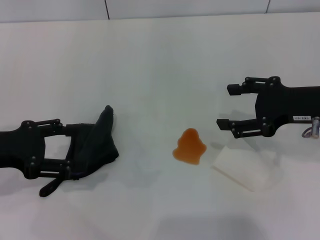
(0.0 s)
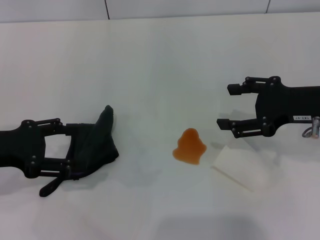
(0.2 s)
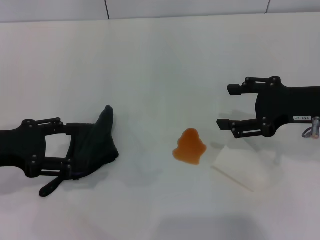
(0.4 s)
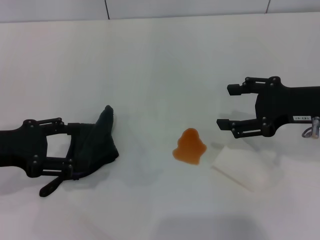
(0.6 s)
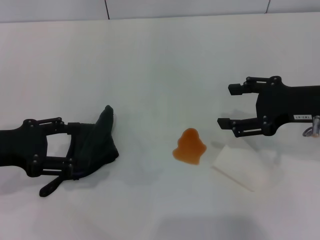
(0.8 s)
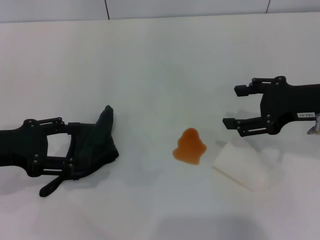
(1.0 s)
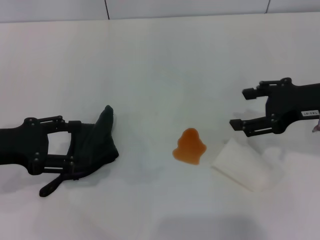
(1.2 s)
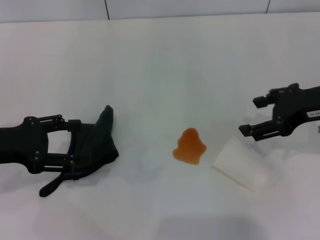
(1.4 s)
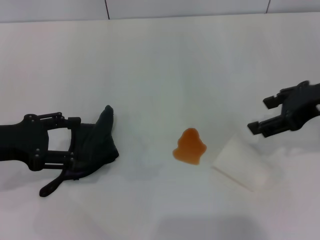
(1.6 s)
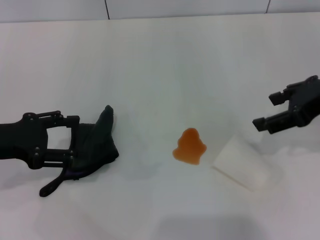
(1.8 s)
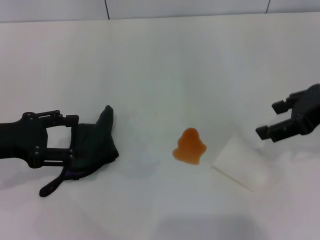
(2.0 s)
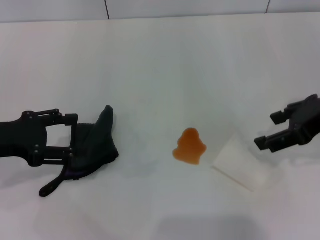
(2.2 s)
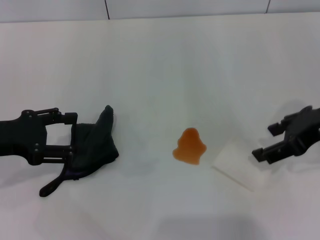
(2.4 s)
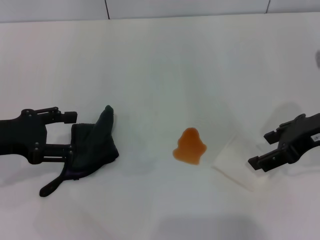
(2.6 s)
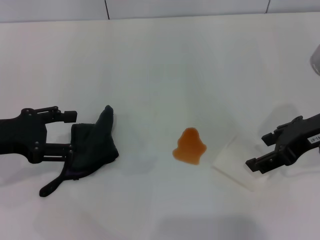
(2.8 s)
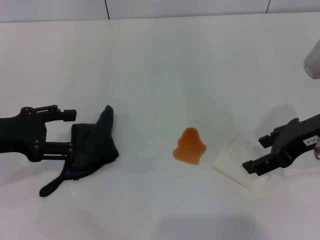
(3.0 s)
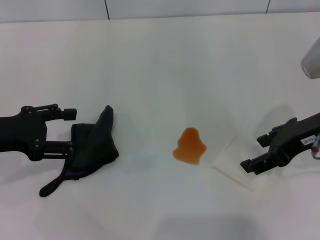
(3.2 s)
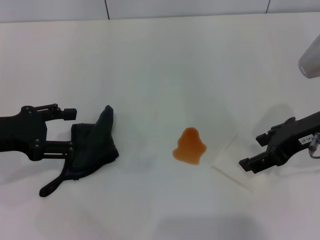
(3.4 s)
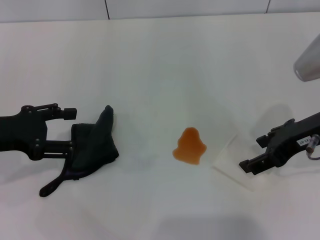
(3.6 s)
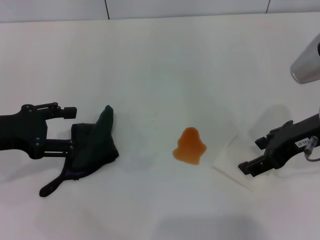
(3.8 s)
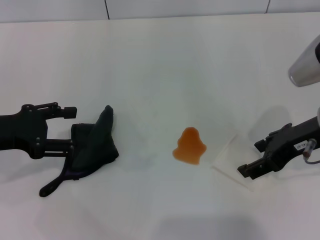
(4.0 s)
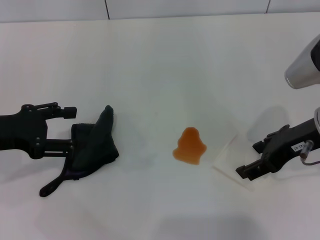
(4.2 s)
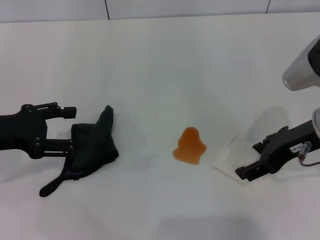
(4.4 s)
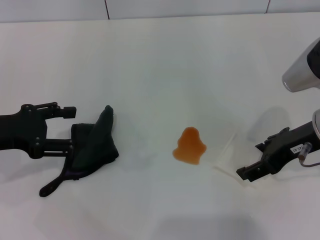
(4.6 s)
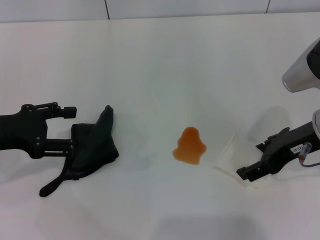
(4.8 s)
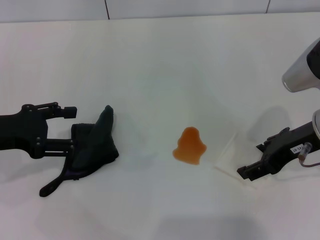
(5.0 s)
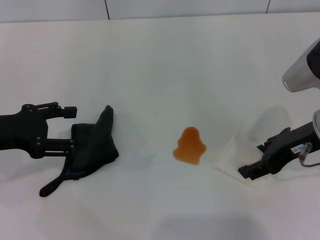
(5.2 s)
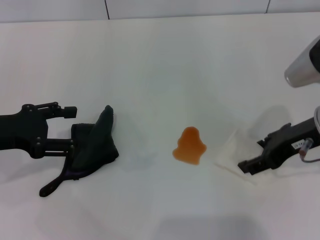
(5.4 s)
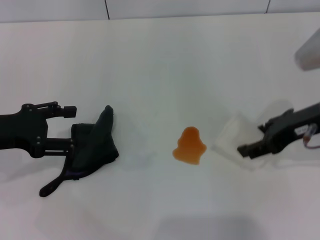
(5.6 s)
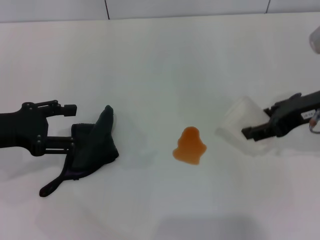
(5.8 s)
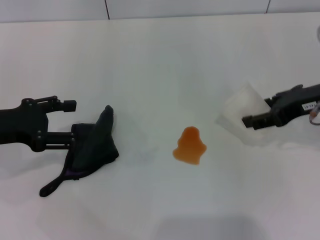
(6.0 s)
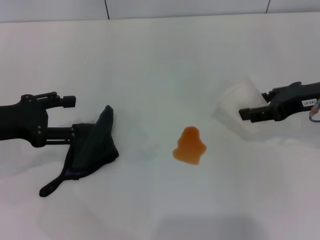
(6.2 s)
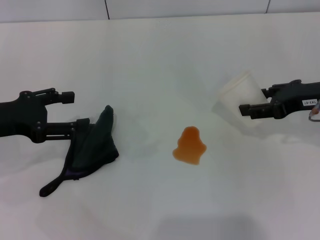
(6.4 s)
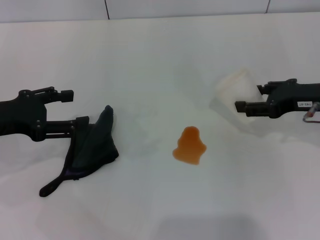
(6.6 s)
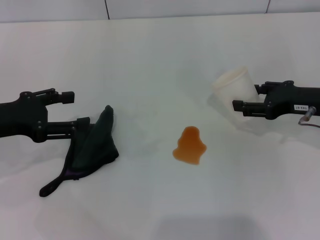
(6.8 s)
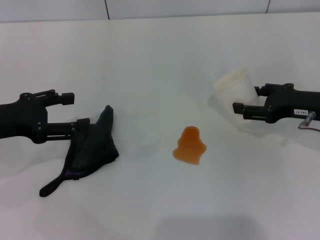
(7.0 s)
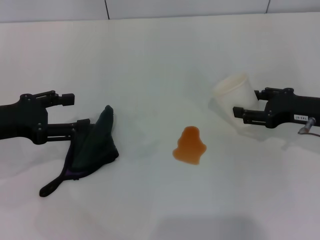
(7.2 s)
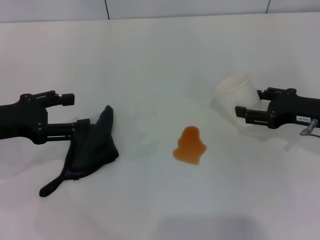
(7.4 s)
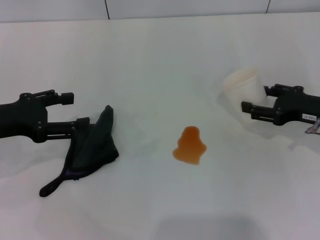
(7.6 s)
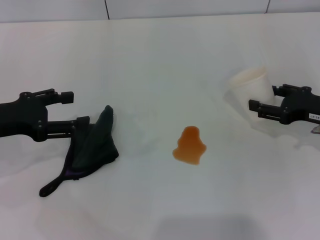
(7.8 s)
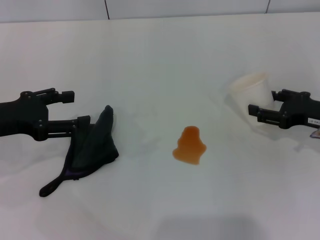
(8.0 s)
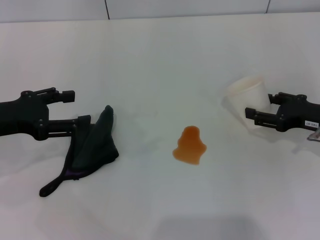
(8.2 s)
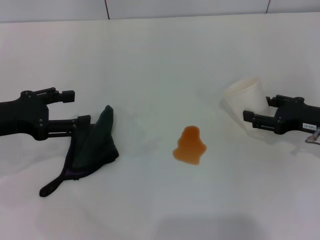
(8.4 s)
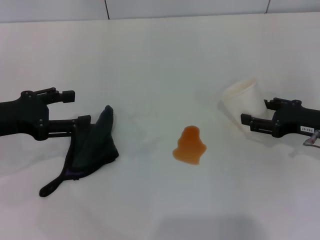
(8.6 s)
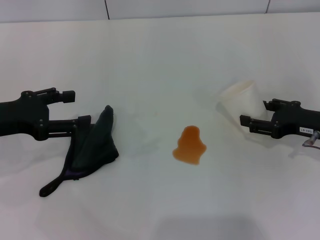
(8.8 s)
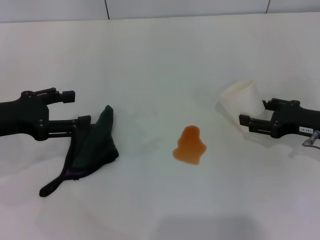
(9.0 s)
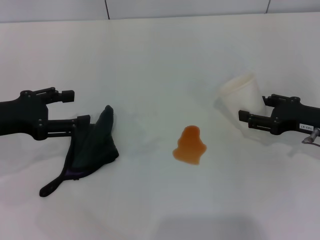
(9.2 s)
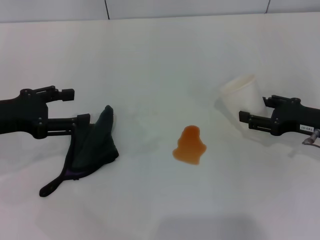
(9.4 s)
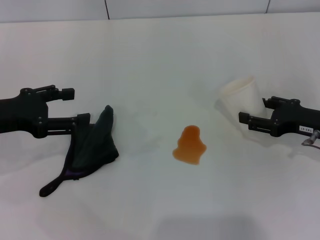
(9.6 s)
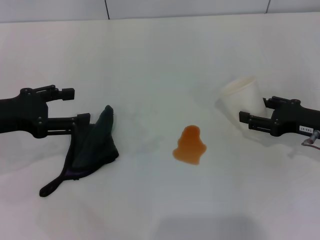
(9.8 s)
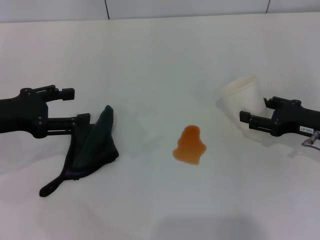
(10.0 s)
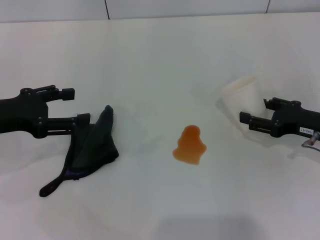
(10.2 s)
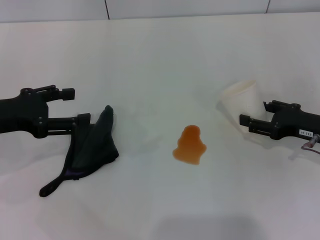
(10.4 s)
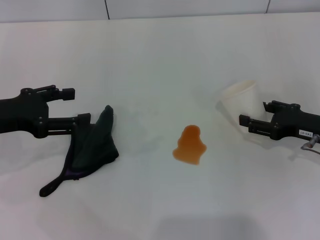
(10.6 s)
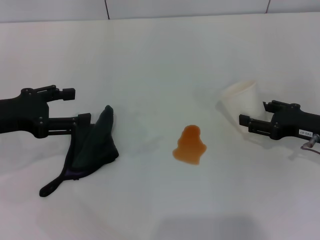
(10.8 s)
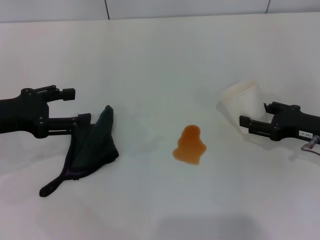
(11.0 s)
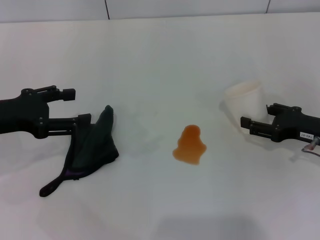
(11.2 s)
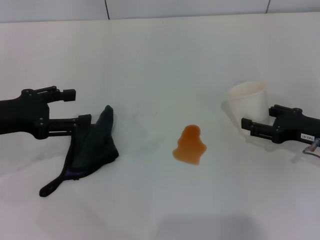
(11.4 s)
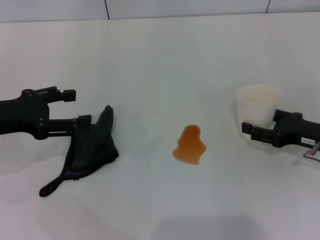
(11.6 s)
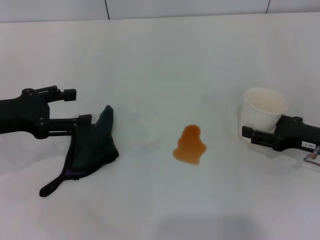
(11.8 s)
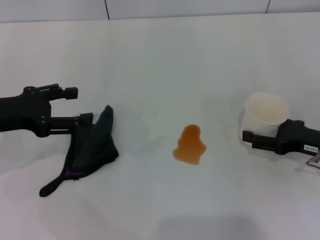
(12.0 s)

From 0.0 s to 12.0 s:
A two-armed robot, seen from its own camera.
Step, from 0.0 s to 5.0 s: Grasp the paper cup with the right gripper.
From 1.6 s to 4.4 s: There are only small adjustments of the grippers.
From 4.4 s to 6.0 s: The right gripper closes up.
From 6.0 s to 7.6 s: The right gripper moves downward, about 10 cm.
From 7.6 s to 9.0 s: The grippers make only small movements.
From 9.0 s to 10.4 s: Both grippers stay about where they are.
From 10.4 s to 12.0 s: The grippers stay close to where they were, moving slightly.

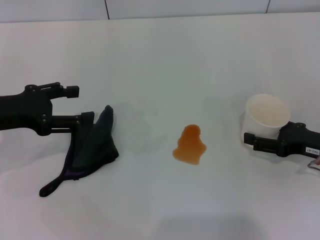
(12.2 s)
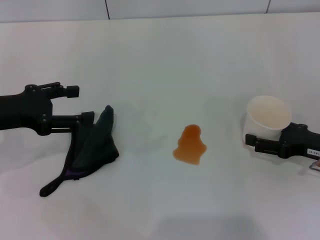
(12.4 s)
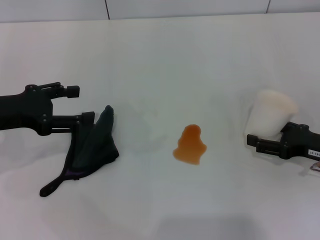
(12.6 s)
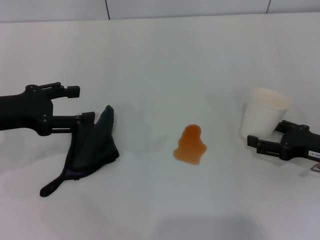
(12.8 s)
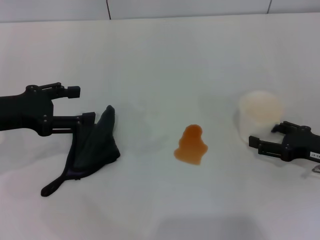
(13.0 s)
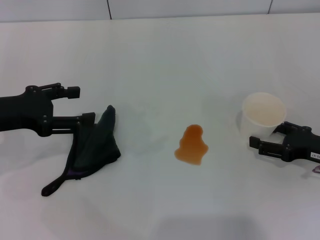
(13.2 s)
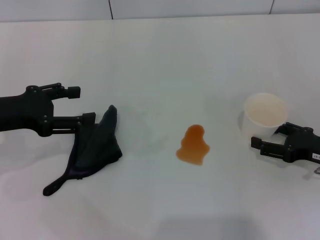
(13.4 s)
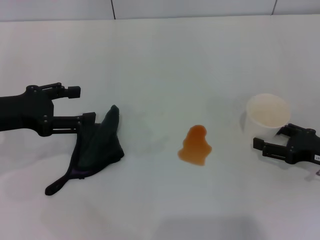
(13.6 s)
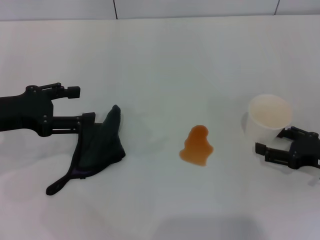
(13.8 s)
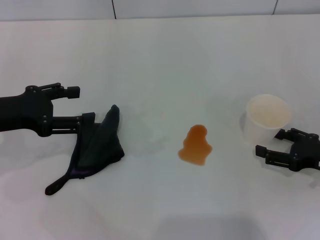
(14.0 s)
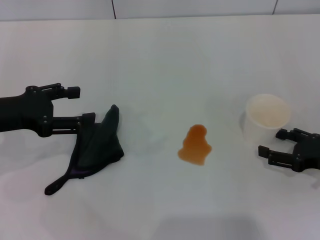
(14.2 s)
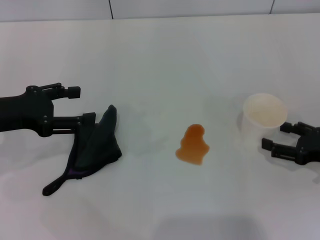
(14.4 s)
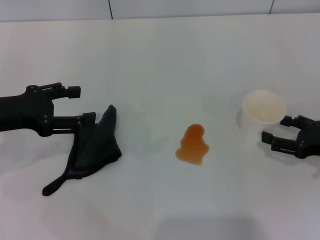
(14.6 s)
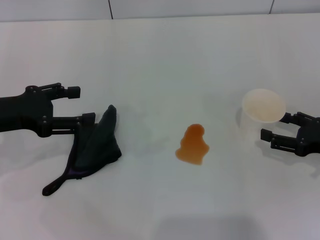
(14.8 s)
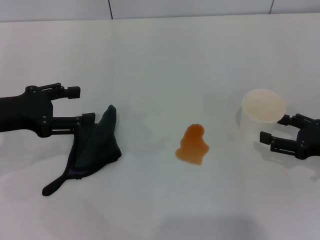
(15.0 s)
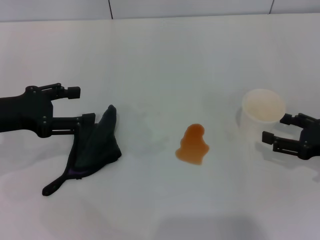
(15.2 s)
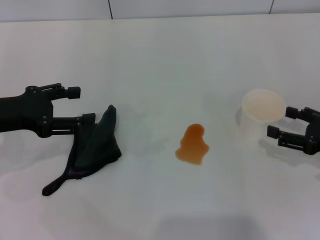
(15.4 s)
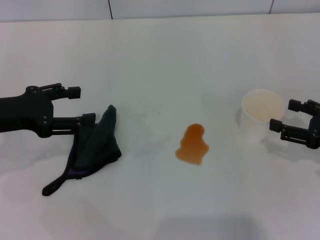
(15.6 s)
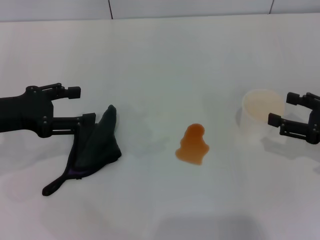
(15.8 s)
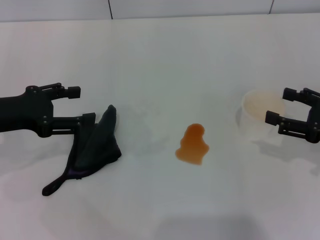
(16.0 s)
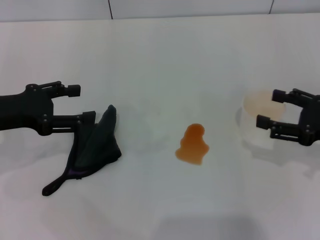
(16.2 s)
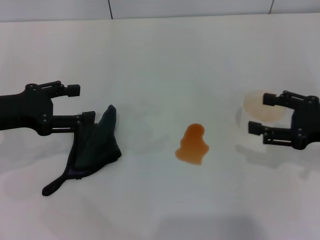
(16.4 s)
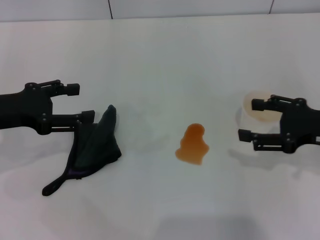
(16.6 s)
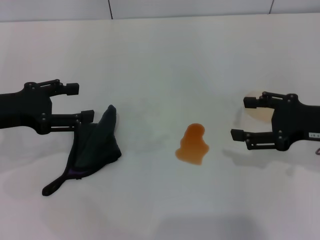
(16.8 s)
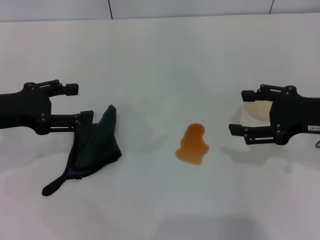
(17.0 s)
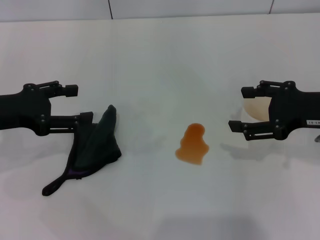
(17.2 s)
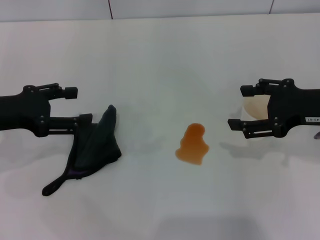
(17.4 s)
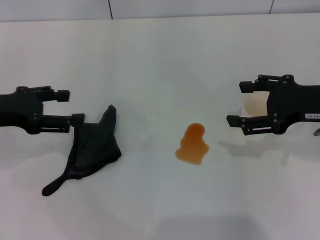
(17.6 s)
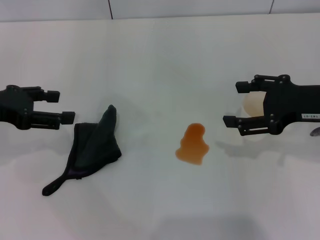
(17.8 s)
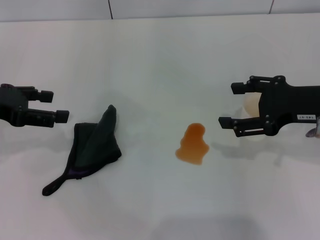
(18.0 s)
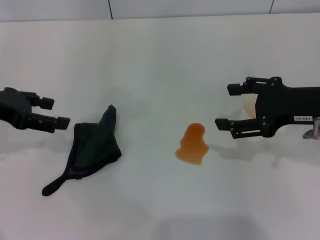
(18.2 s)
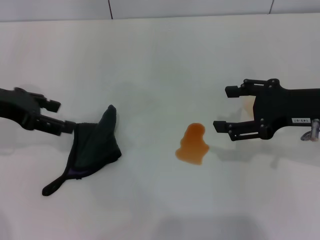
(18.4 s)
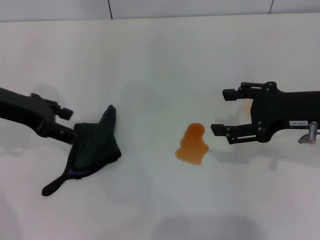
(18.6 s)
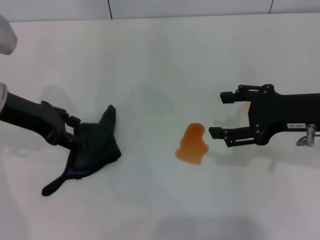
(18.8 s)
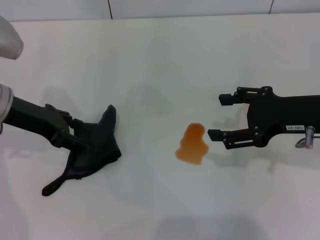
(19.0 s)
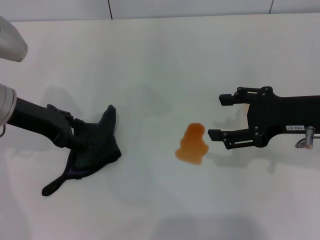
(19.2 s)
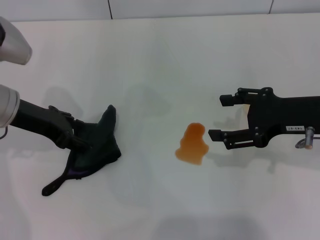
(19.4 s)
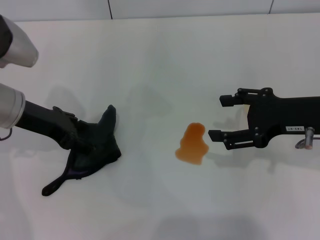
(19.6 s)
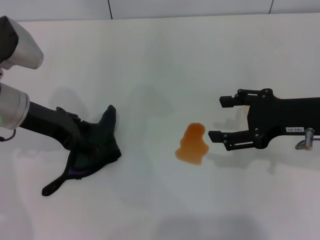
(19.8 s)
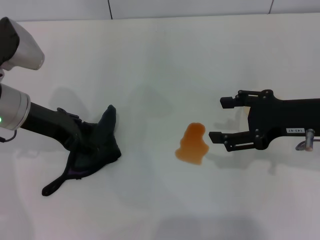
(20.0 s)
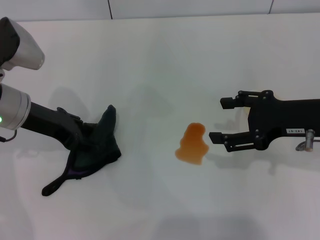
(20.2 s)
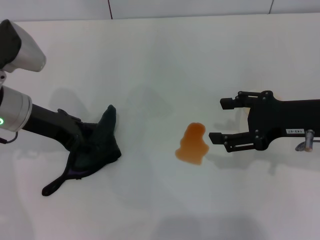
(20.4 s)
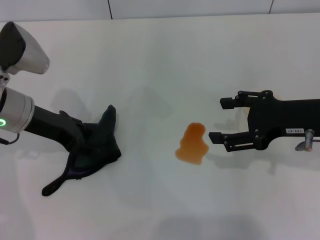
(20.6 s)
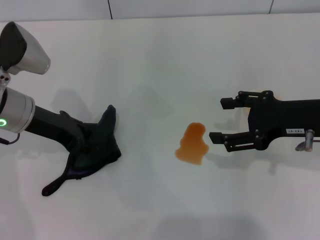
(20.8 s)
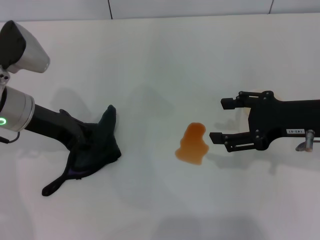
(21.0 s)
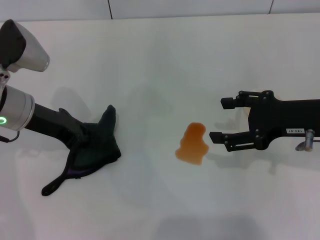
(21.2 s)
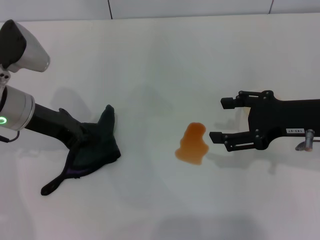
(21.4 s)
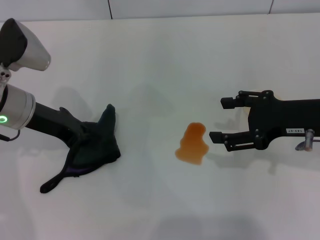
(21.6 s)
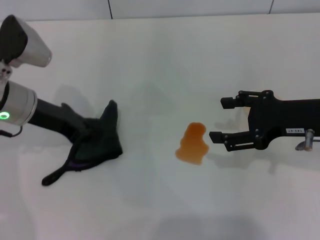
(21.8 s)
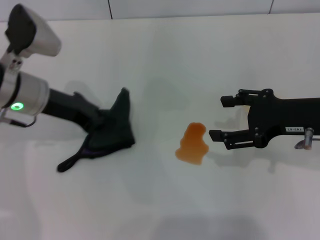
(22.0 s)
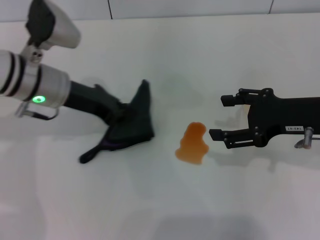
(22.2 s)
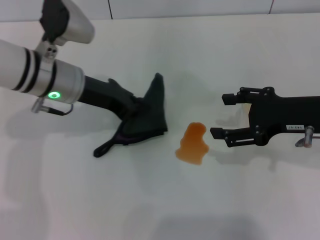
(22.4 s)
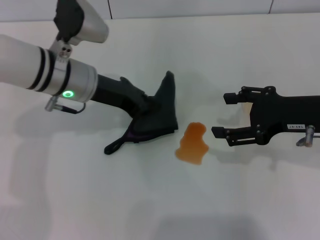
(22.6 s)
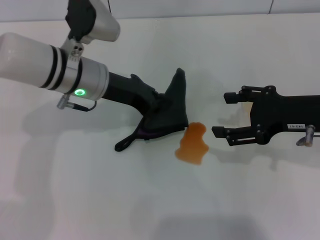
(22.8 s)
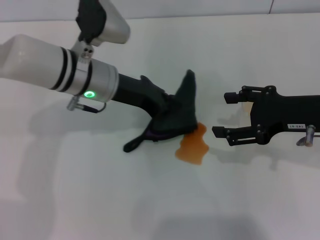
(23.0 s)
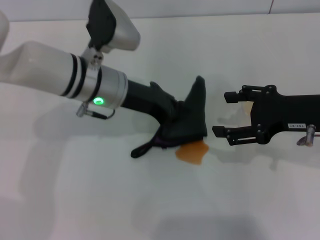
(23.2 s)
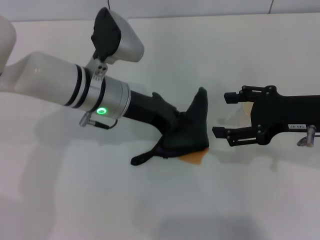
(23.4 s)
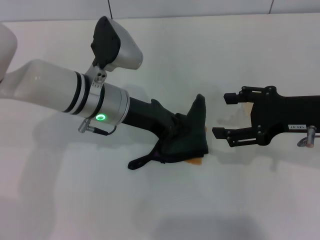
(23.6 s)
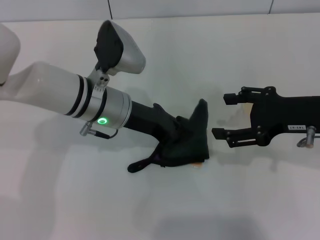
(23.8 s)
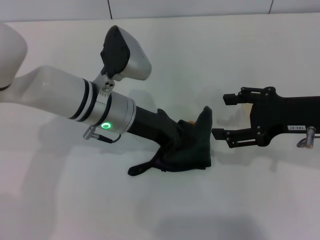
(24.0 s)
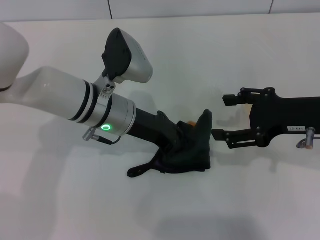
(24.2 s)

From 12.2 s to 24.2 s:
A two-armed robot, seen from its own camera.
Step, from 12.2 s to 14.2 s: Stand the paper cup upright with the right gripper.
Step, from 14.4 s to 21.6 s: Grasp the rag with the left gripper.
From 12.2 s to 15.2 s: The grippers move only a little.
From 15.2 s to 16.6 s: The right gripper is displaced upward by about 5 cm.
From 16.6 s to 18.2 s: The right gripper shifts by about 5 cm.
From 18.2 s to 19.8 s: The left gripper travels to the right by about 5 cm.
From 19.8 s to 21.2 s: The left gripper closes its fingers.
From 21.2 s to 22.6 s: The left gripper goes approximately 10 cm to the right, and closes its fingers.
From 22.6 s to 24.2 s: The left gripper changes place by roughly 5 cm.
